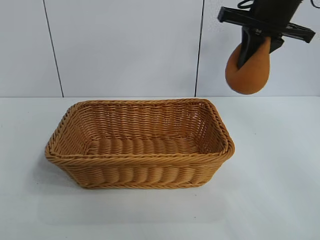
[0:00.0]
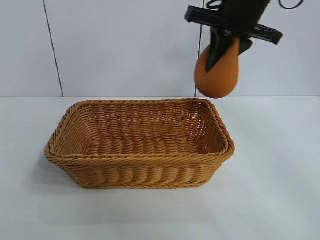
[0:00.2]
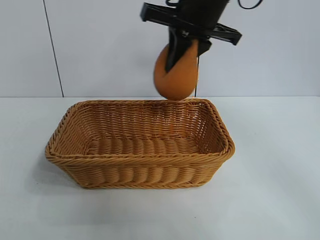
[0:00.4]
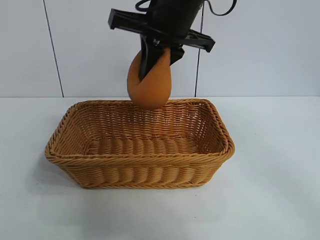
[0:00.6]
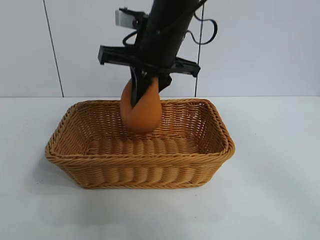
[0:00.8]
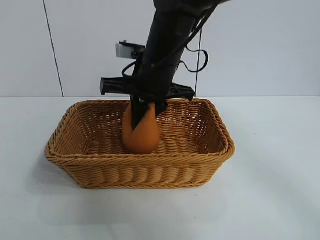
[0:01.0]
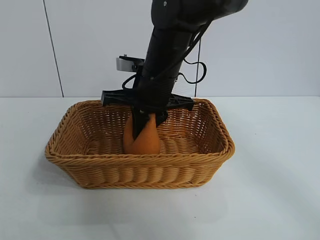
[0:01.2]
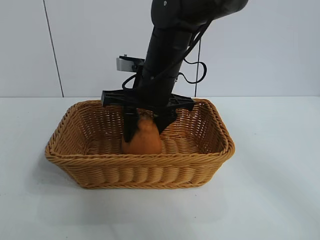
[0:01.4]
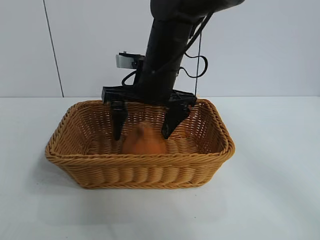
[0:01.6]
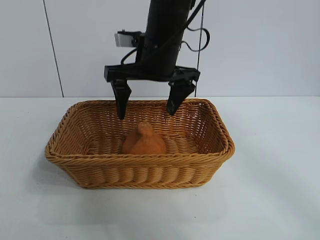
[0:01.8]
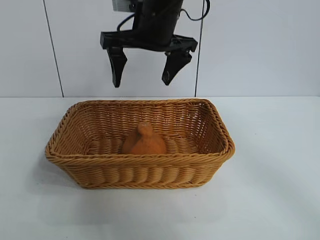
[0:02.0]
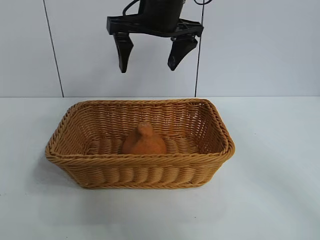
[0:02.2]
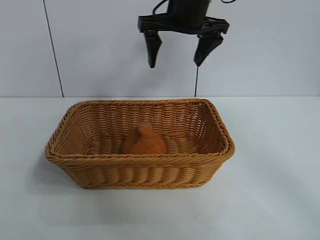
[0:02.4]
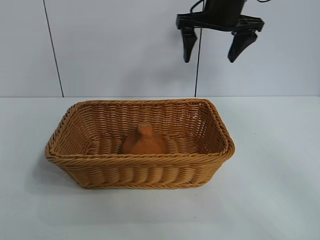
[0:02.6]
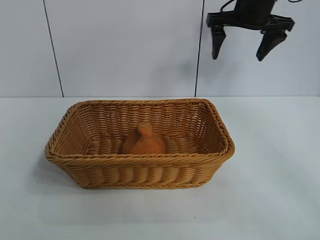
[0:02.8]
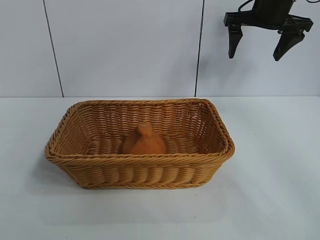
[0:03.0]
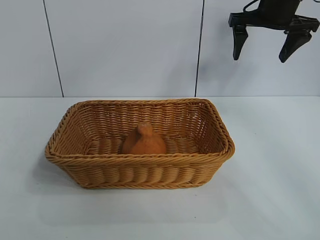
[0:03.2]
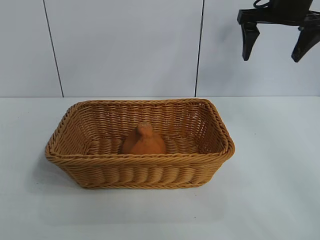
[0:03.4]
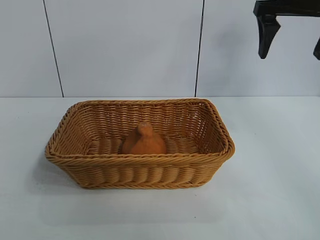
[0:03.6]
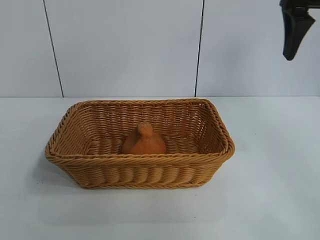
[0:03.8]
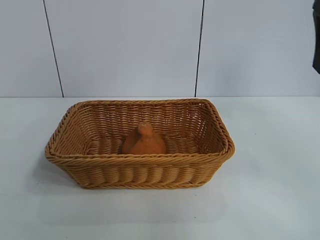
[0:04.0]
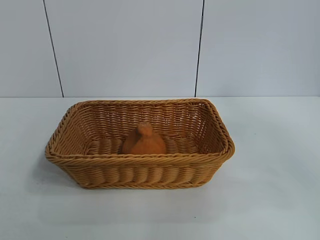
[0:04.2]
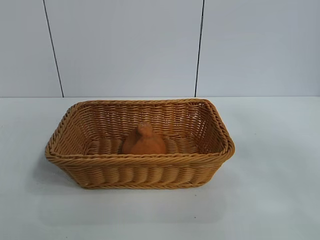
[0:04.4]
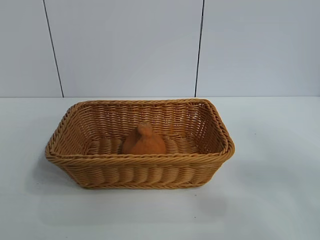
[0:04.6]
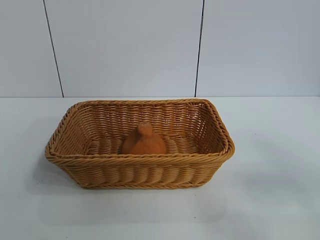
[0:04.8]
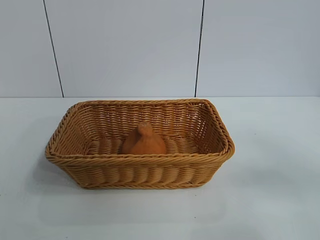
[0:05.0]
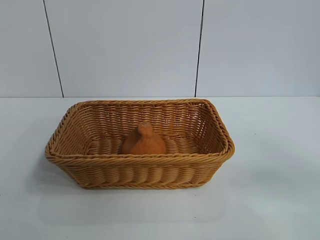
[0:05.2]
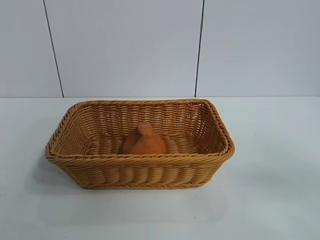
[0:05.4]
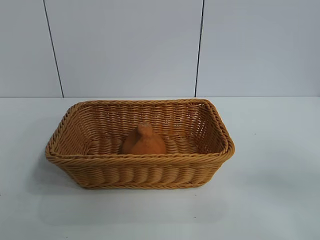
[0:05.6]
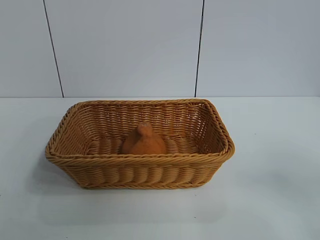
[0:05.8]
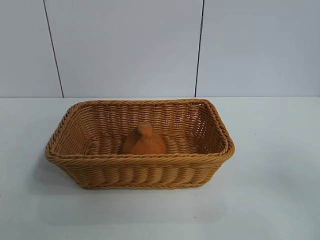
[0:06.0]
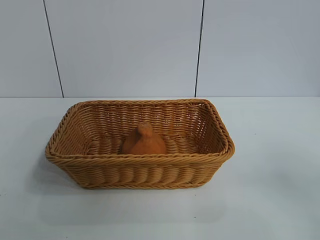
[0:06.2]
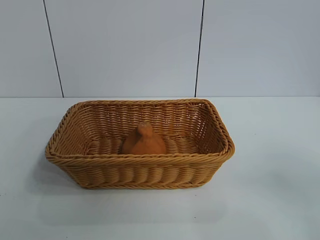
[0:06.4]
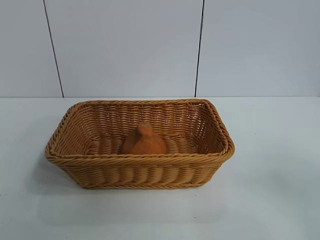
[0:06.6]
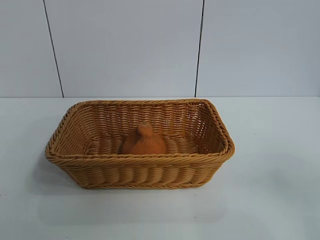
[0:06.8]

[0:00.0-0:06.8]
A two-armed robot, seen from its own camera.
Task of the whole recording: pick up the orange and put it into the basket.
Step, 0:00.0 to 0:01.6: Place the orange in the basket with right gripper.
